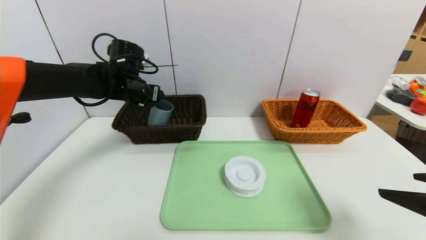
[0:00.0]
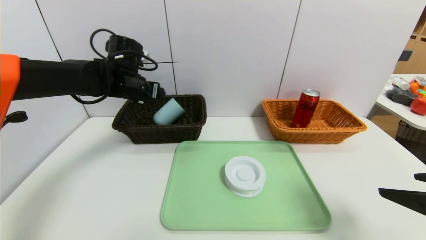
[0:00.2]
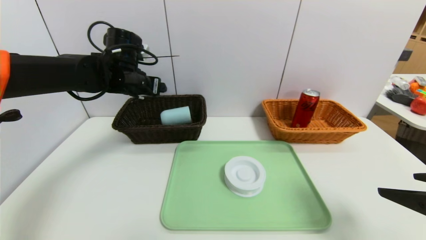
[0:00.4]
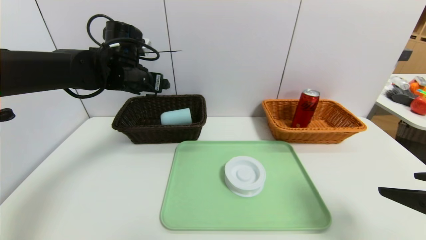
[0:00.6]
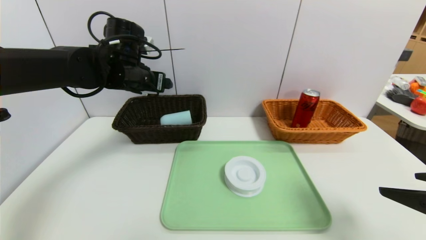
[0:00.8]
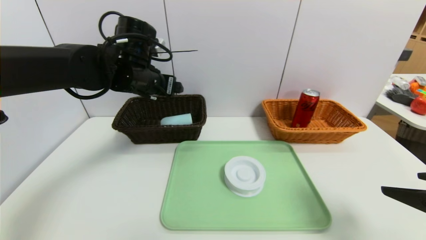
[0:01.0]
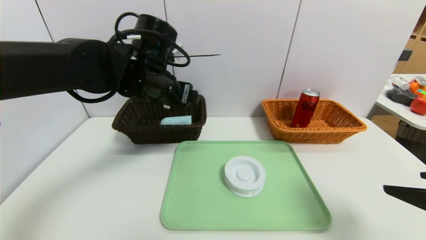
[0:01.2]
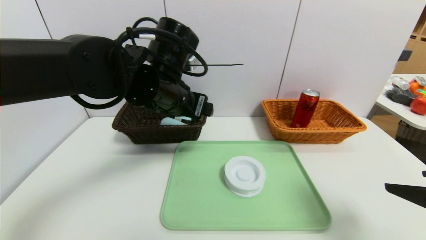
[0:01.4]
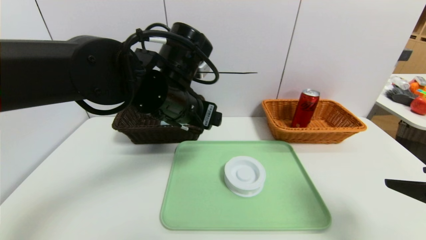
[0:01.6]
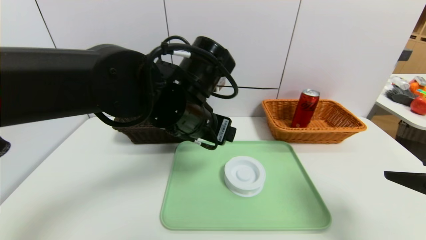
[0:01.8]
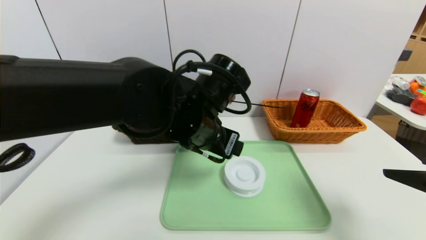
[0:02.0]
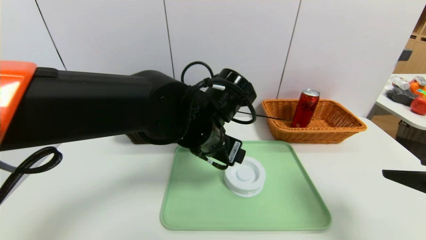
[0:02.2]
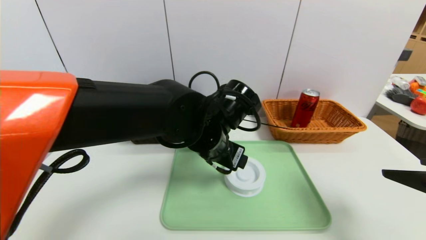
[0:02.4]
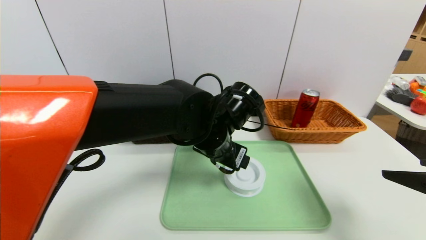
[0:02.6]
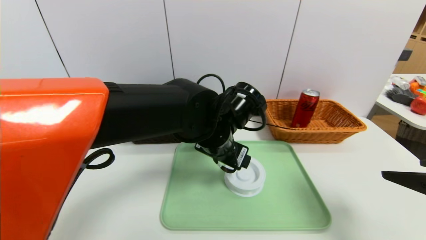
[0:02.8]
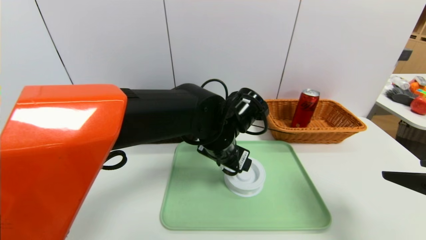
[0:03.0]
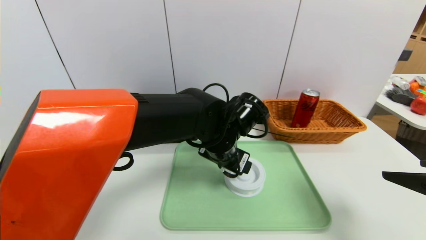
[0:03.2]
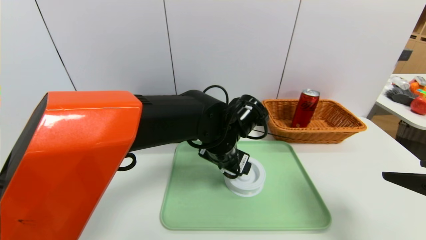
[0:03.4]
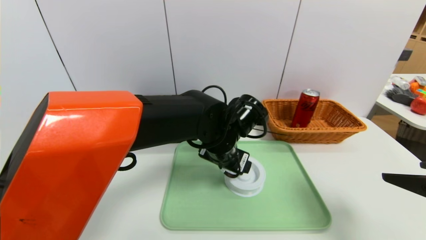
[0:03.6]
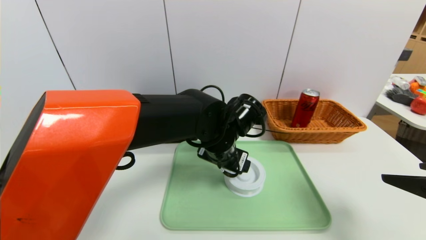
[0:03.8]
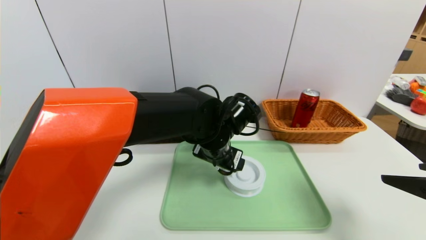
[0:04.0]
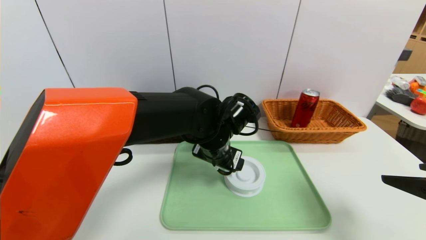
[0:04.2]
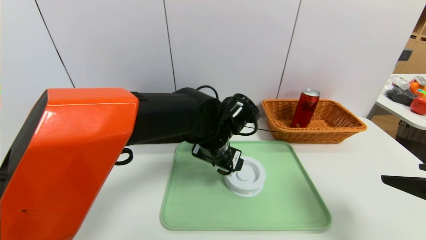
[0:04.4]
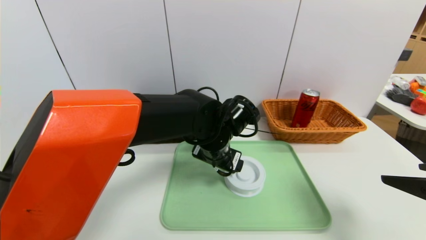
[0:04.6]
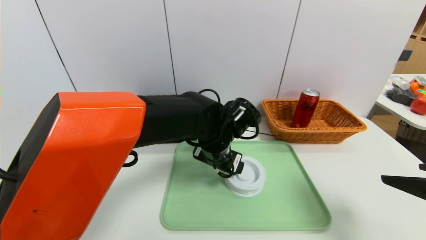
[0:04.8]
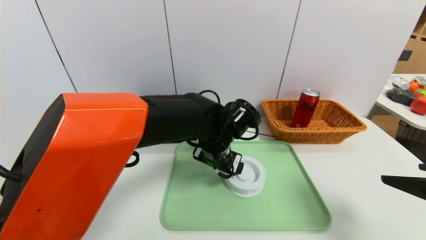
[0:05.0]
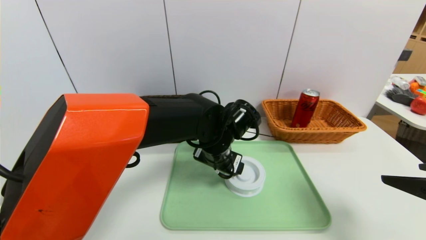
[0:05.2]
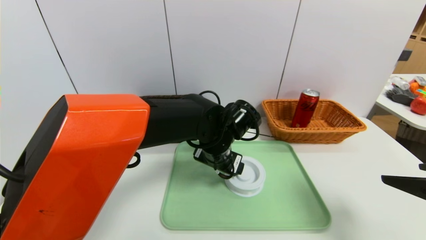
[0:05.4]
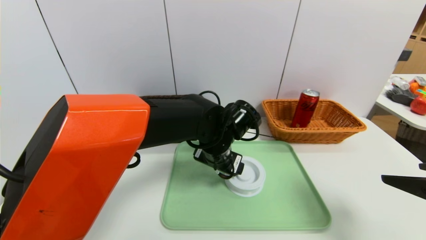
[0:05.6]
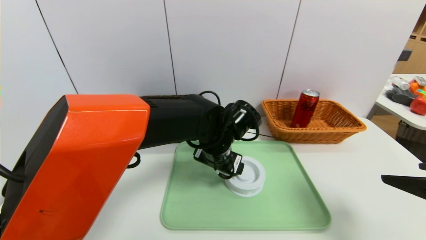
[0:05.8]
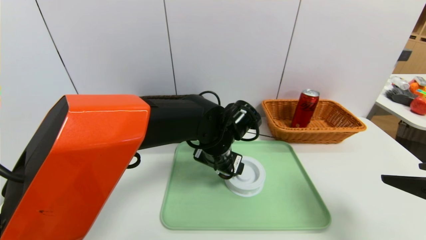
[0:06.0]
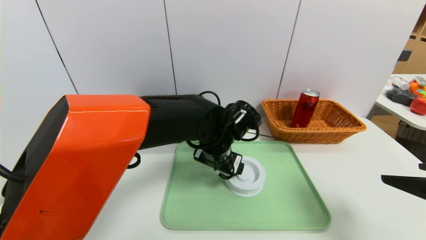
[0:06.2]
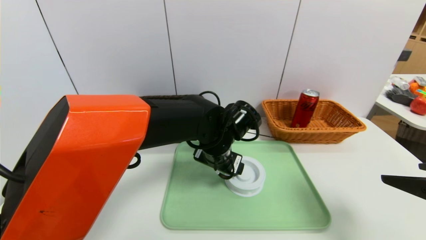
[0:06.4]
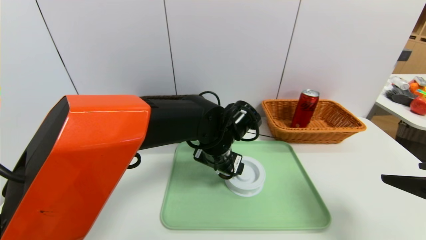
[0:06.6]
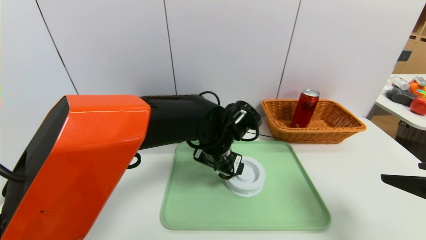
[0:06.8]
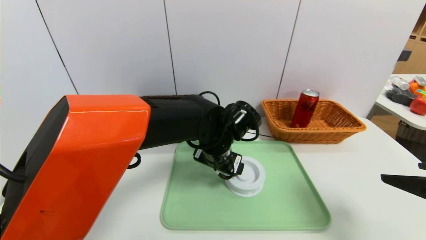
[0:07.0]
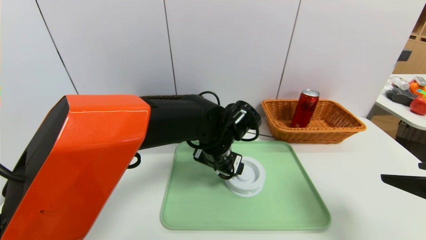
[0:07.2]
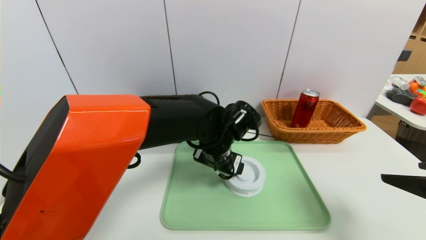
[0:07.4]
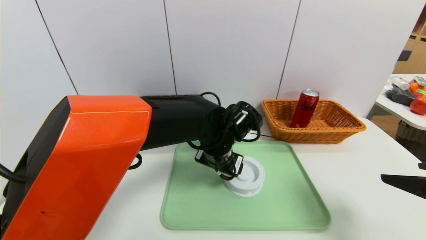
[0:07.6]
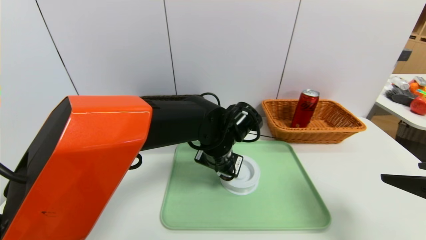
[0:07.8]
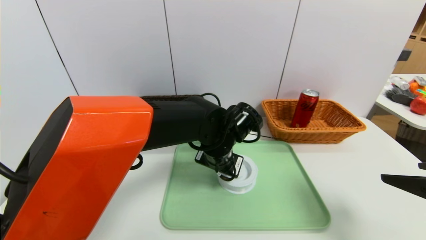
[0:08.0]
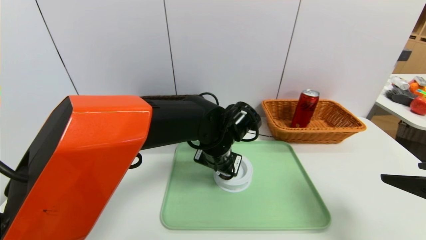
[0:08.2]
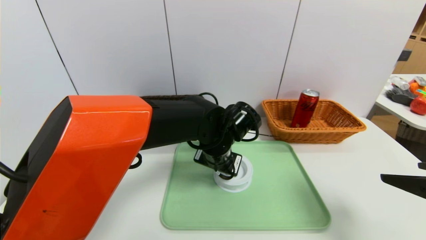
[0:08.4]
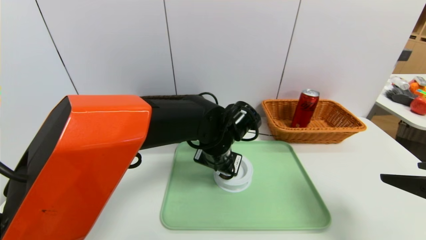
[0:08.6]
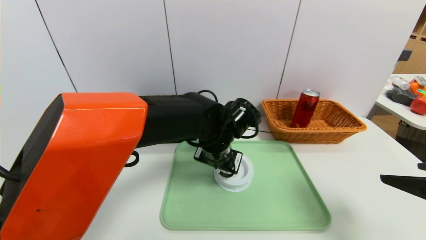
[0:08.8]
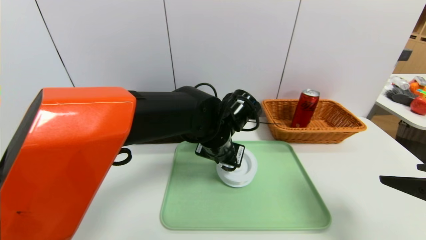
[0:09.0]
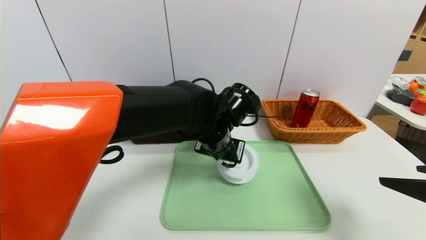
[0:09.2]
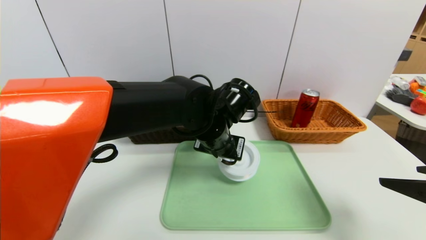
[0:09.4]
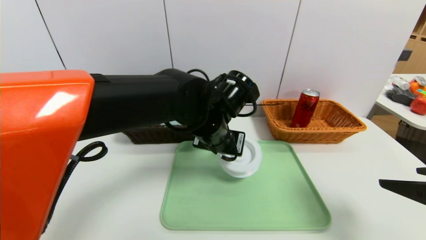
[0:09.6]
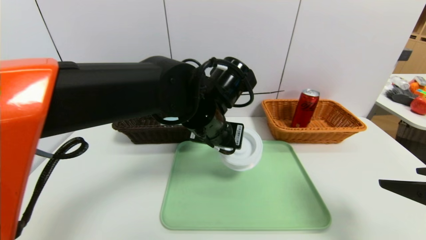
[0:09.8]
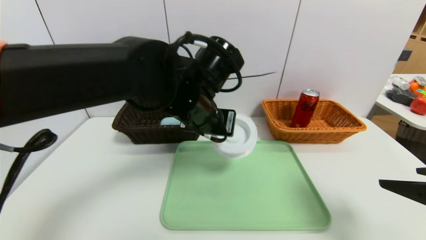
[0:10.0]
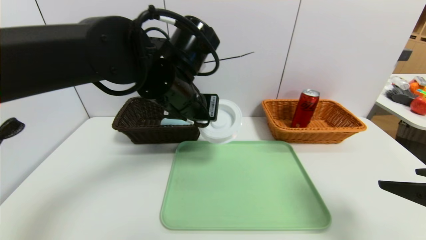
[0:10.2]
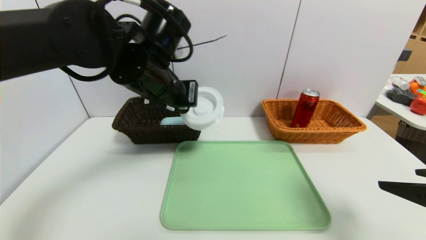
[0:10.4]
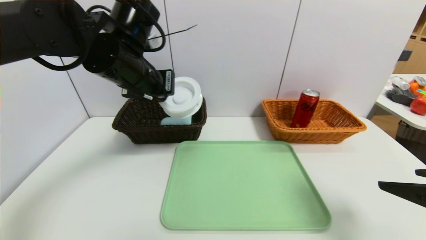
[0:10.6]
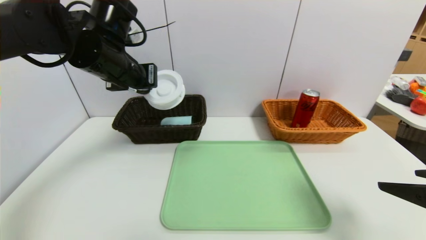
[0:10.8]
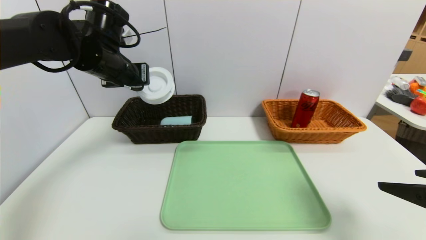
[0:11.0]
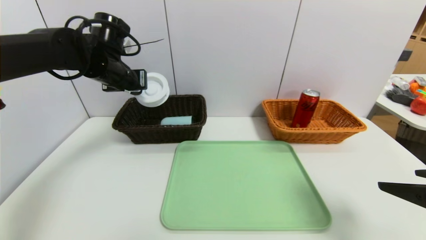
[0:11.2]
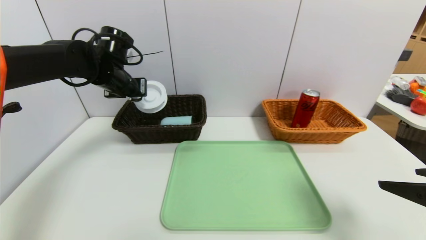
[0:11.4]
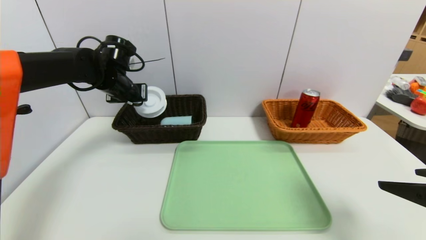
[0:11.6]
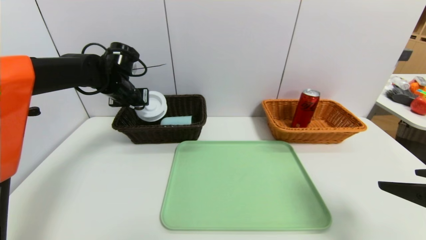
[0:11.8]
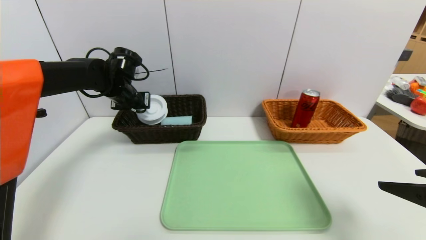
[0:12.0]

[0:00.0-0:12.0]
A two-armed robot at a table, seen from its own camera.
Task of the whole recording: place the food in the right basket with the right gripper, and place the non food items in the left basket with the left gripper.
0:00.0 to 0:01.6: The left gripper travels backward and to the right by some 20 cm.
0:01.6 to 0:03.0: The left gripper shifts about 10 cm downward and to the right.
0:03.0 to 0:06.0: The grippers move only a little.
0:06.0 to 0:07.6: Both grippers stay about where they are.
0:07.6 to 0:09.0: The left gripper closes its fingers.
0:09.0 to 0:10.4: The left gripper travels upward and to the left by some 15 cm.
0:10.4 to 0:12.0: The left gripper travels forward, to the left and downward by some 20 cm.

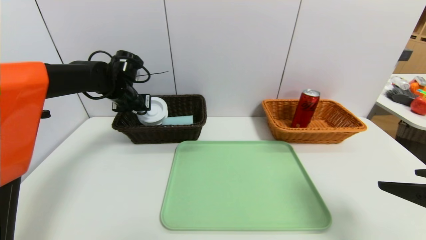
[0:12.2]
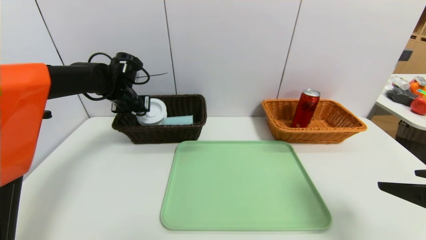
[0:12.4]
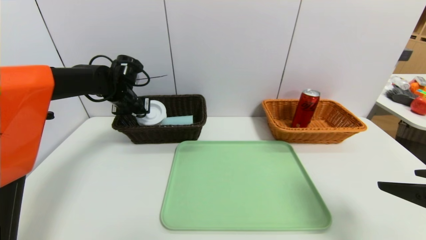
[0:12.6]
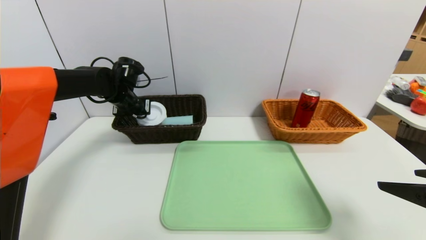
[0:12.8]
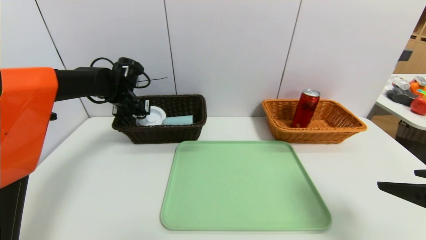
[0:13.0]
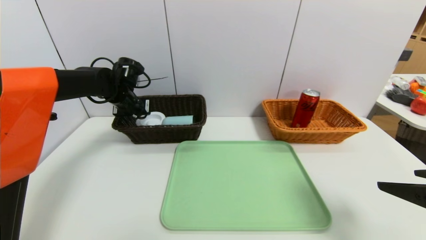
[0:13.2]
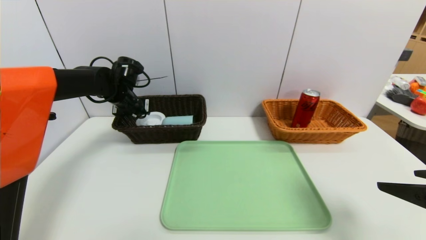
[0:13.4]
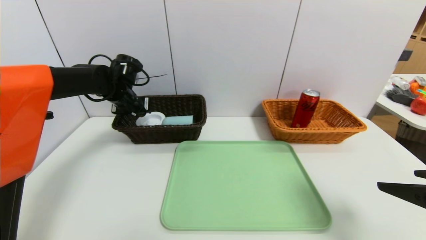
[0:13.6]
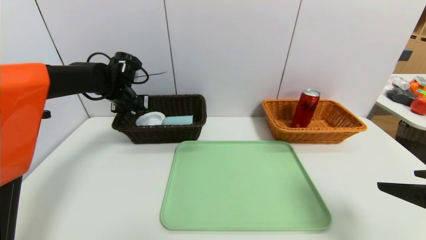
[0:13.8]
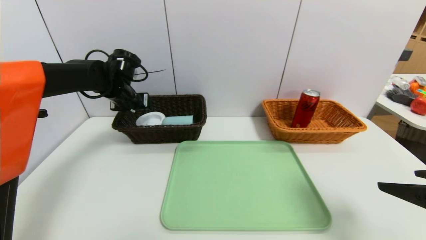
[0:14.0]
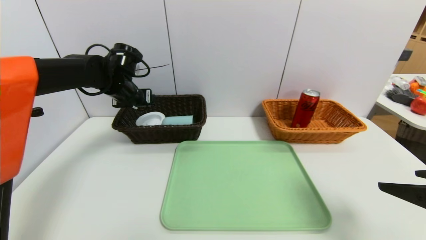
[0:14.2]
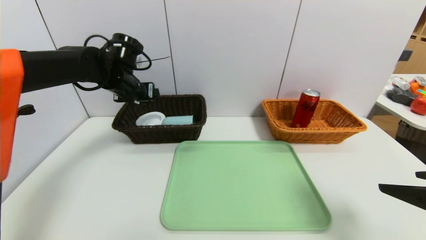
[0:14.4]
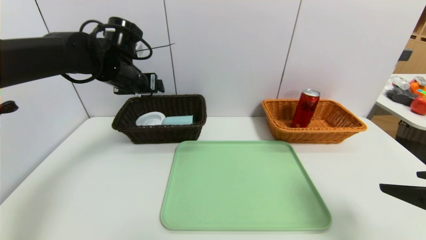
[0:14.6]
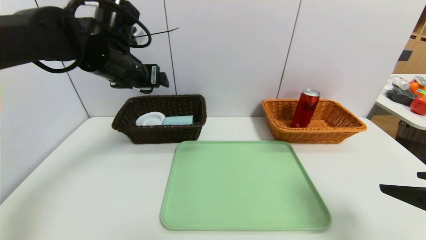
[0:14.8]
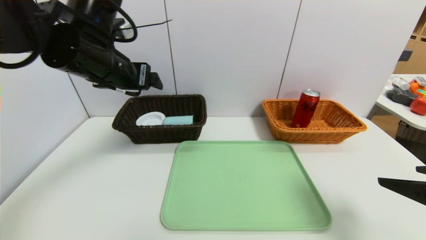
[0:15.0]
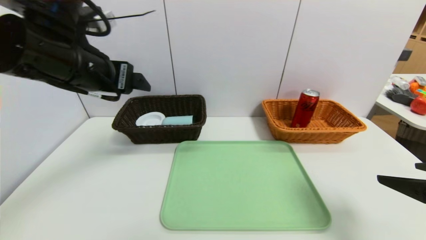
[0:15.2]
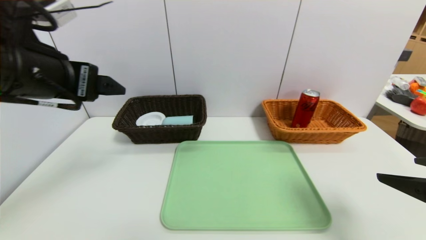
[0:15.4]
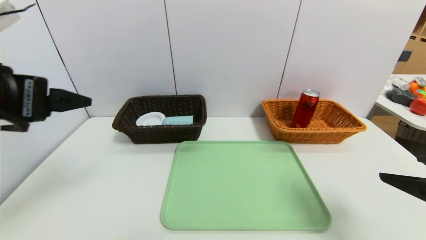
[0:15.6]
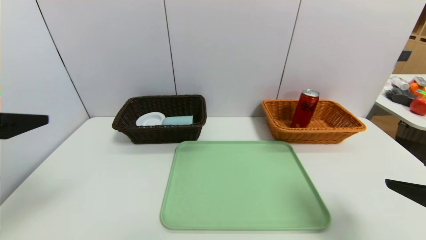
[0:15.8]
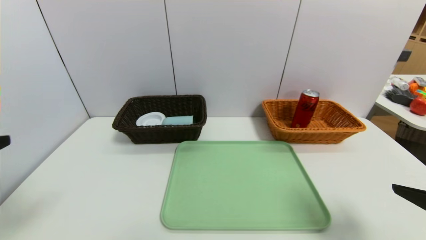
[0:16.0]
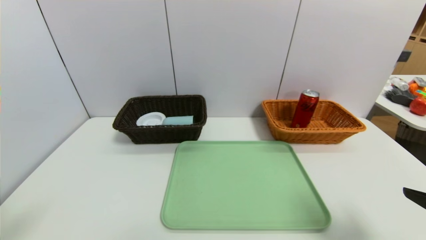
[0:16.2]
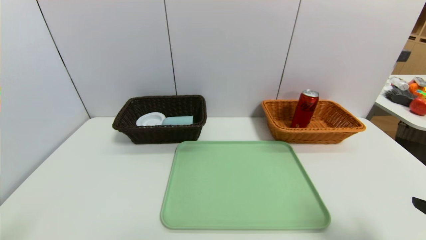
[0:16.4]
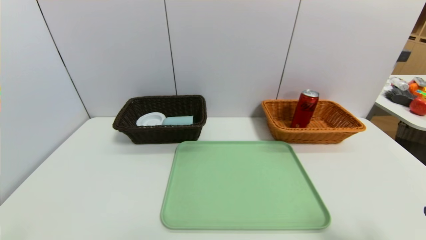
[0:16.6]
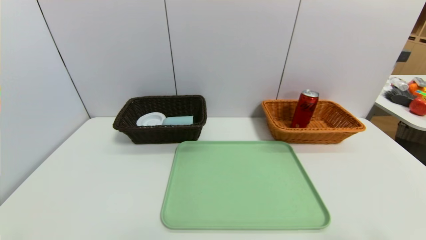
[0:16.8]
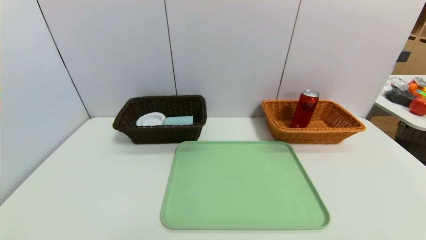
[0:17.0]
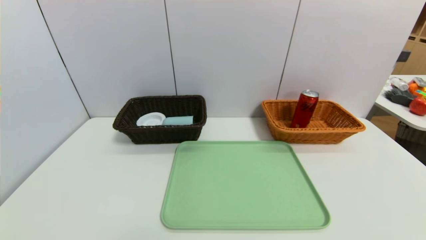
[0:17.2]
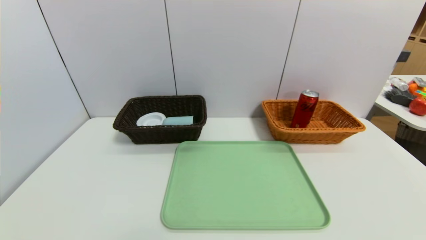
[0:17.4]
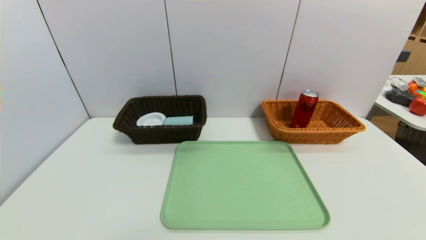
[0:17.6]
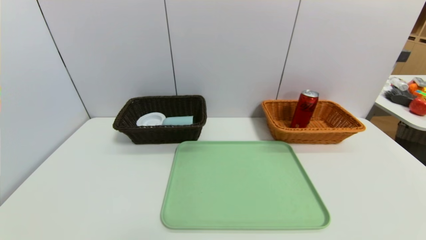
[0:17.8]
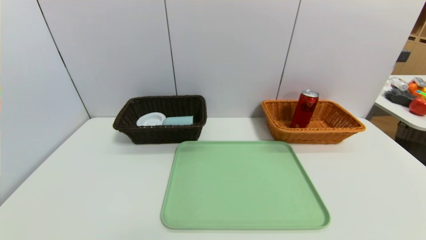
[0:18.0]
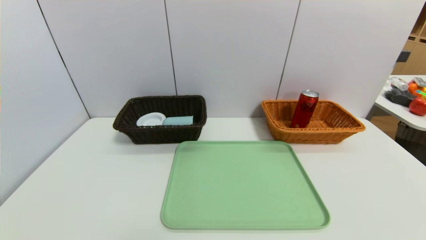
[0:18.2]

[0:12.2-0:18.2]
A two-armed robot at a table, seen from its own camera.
Task of the whole recording: place the food in the right basket with the right gripper, and place the non food items in the left basket with the left gripper.
0:12.2 to 0:13.8: The left gripper opens its fingers.
0:13.8 to 0:15.2: The left gripper heads backward and upward, covering roughly 25 cm.
0:15.2 to 0:16.6: The right gripper heads backward, covering about 10 cm. Meanwhile the left gripper moves backward and to the left, about 30 cm.
